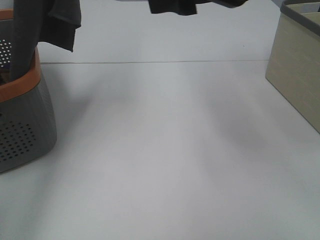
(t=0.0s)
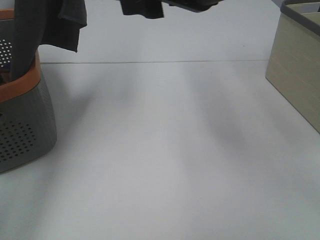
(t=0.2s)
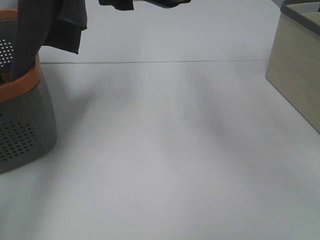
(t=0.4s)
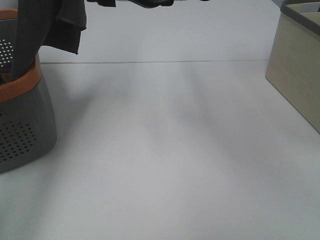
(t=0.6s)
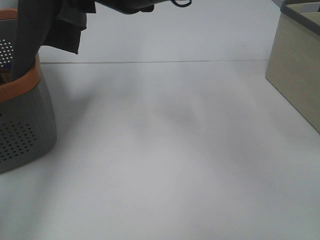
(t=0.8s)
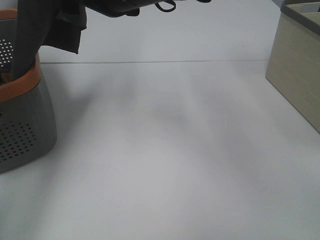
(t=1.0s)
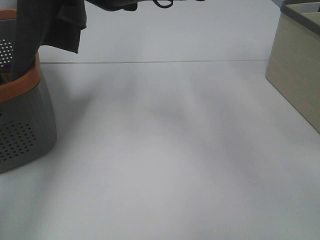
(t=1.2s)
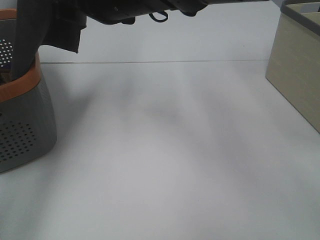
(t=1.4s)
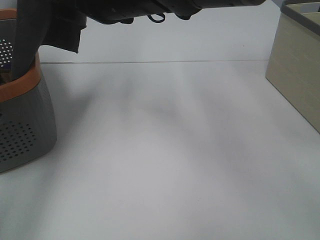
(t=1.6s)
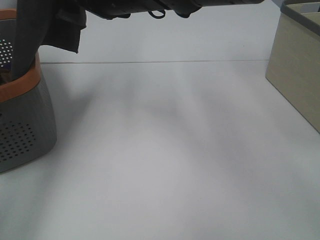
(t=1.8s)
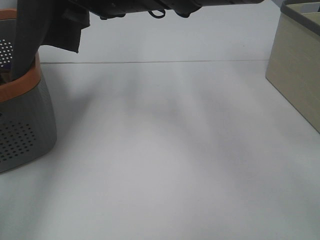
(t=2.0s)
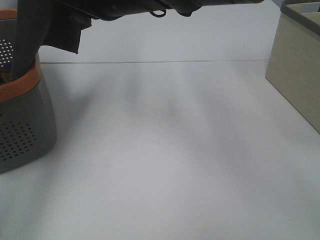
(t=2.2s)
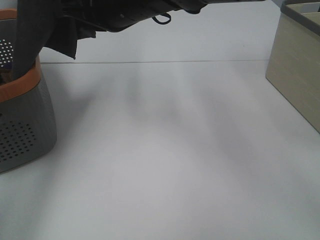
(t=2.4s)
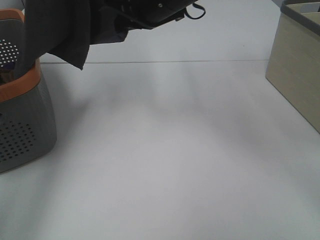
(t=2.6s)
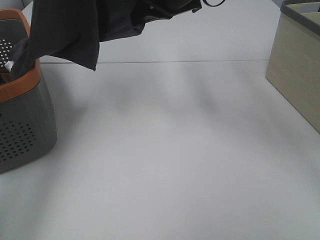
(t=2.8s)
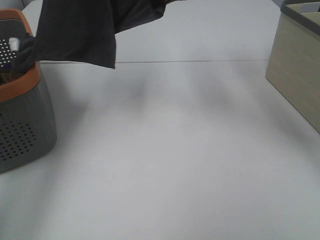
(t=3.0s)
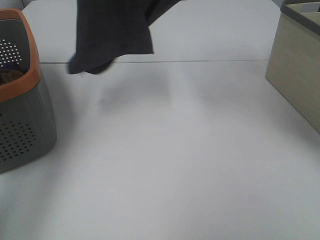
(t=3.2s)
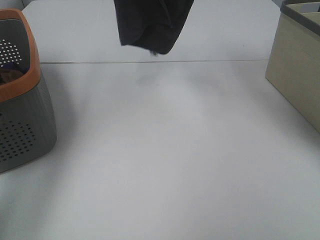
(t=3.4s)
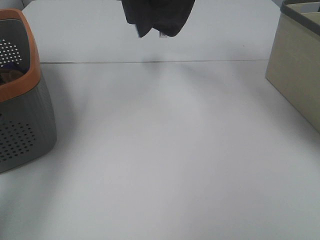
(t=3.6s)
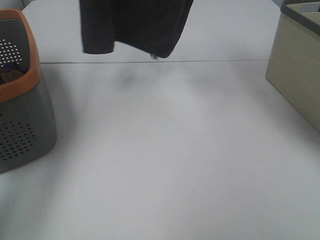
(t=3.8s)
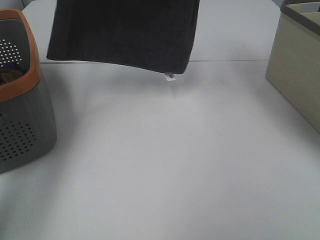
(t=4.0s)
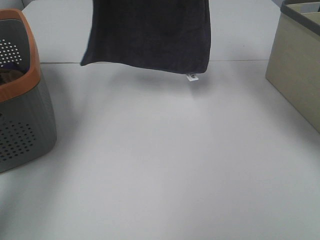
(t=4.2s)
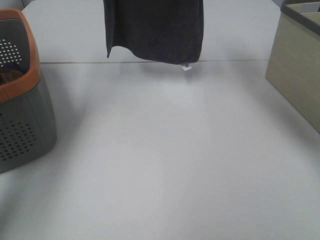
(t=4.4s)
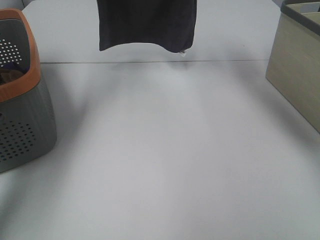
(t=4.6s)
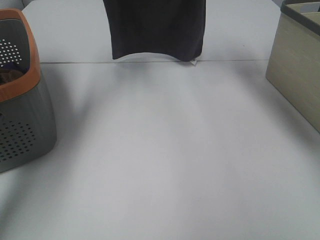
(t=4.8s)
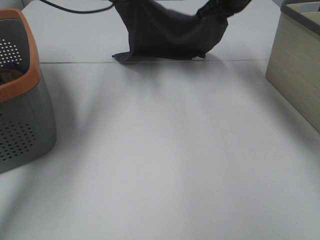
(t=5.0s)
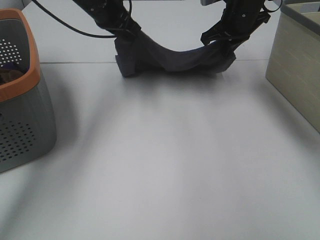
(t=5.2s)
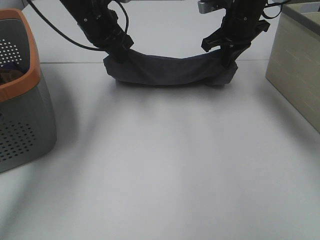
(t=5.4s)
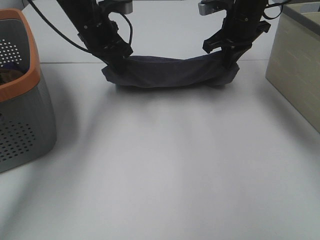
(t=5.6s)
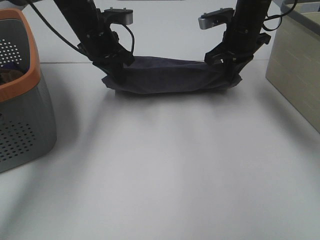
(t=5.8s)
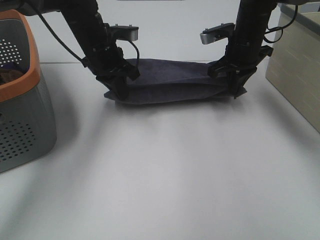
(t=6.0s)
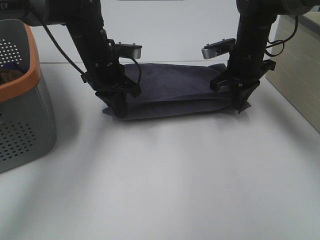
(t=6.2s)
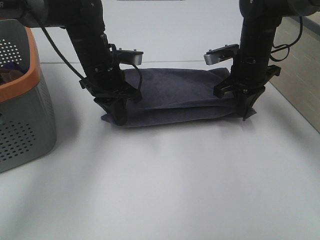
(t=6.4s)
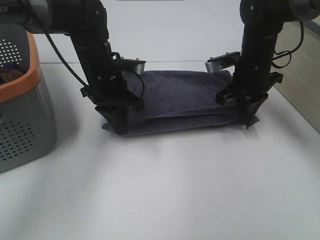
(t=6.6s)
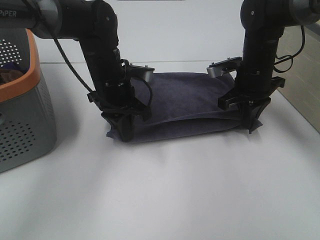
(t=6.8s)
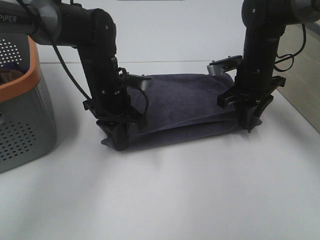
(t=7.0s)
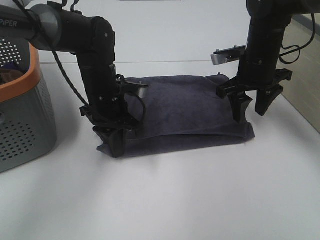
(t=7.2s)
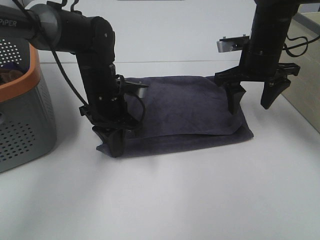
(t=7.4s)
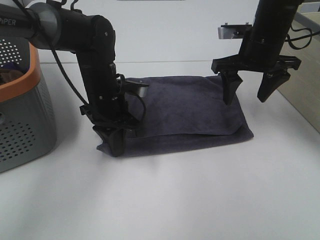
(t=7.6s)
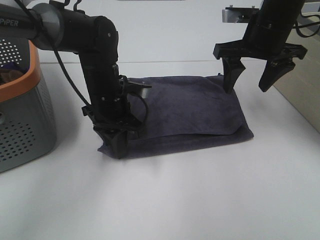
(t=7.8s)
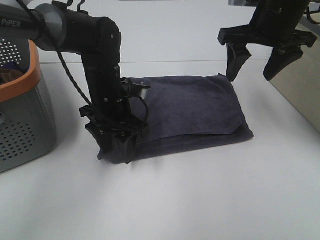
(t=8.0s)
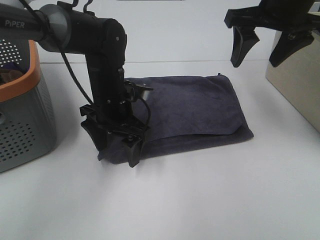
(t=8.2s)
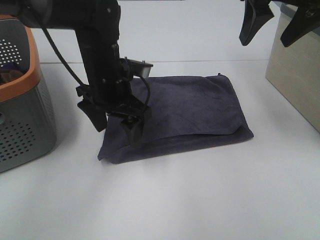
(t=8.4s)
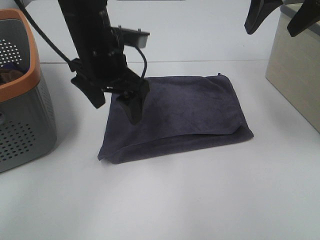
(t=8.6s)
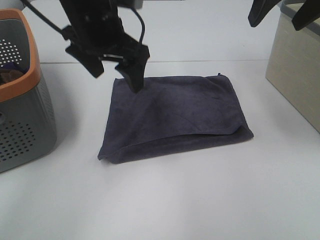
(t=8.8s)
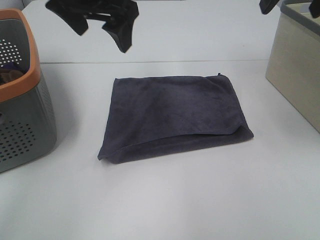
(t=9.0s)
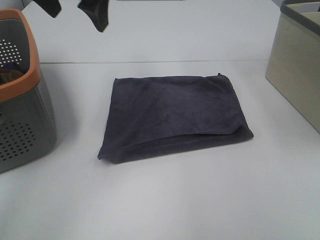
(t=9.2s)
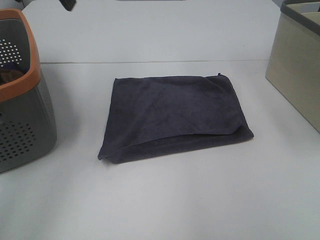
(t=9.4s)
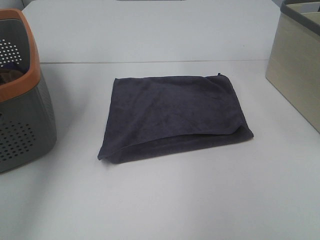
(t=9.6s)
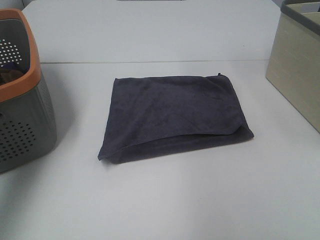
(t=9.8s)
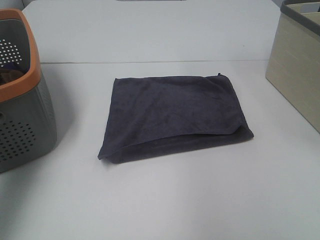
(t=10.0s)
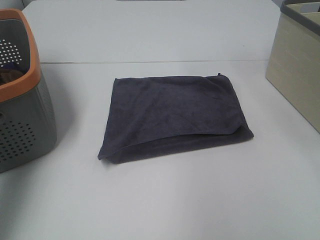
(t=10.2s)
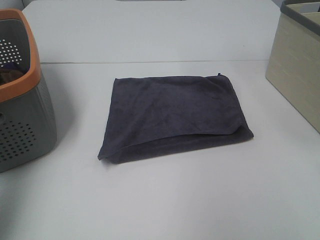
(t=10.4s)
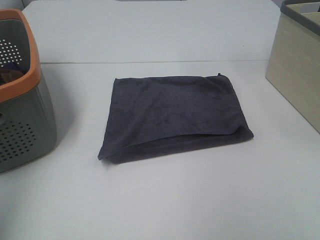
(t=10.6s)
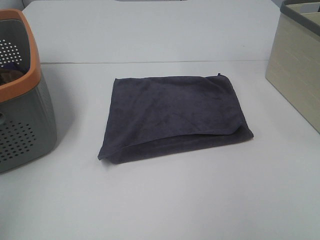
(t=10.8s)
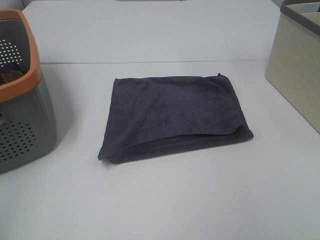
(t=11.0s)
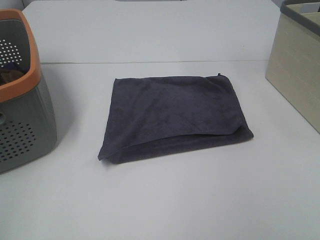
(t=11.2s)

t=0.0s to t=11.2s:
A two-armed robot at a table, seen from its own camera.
Task of the whole recording: Remove the towel and place it.
Step, t=1.4s to t=3.4s: Right hand: spread the grey towel flat on the table.
Step, t=1.4s to t=4.0s: Left hand: spread the grey towel flat on the table.
t=0.0s to t=1.6s: The right gripper travels to the left, forward and downward by roughly 20 cm.
t=1.6s to t=3.2s: The right gripper heads to the right, upward and forward, covering approximately 20 cm, and closes. Meanwhile the left gripper changes place by approximately 5 cm.
t=3.2s to t=4.8s: The left gripper is displaced downward and forward by roughly 20 cm, while the right gripper goes some 10 cm forward and downward.
t=4.8s to t=6.4s: Both grippers move downward and backward, roughly 20 cm.
t=6.4s to t=8.0s: The left gripper shifts by about 5 cm, and opens, while the right gripper goes about 10 cm upward, and opens.
t=8.0s to t=9.6s: The right gripper is displaced upward, to the right and backward by some 20 cm, while the left gripper moves upward and to the left, about 35 cm.
t=9.6s to t=11.2s: The left gripper heads backward, covering approximately 35 cm.

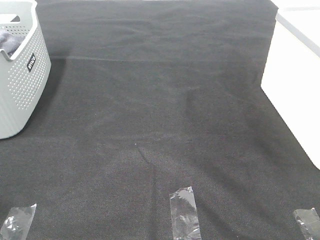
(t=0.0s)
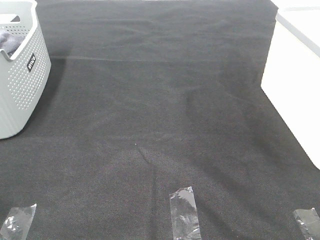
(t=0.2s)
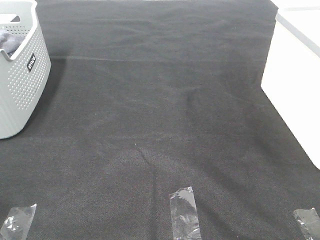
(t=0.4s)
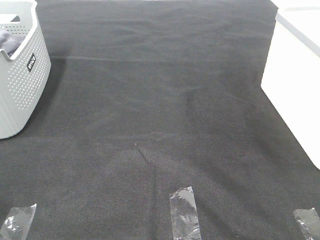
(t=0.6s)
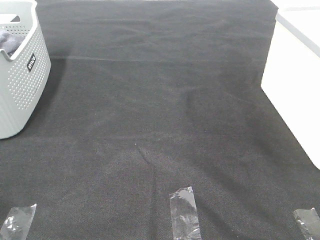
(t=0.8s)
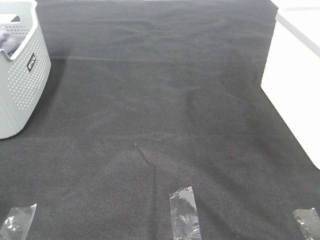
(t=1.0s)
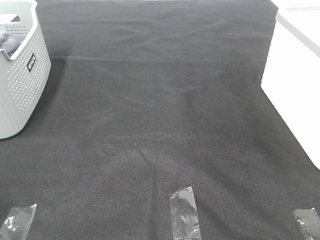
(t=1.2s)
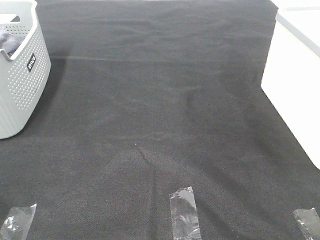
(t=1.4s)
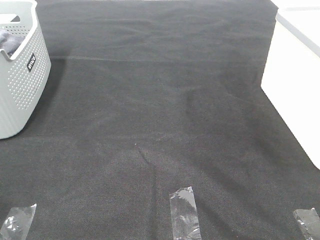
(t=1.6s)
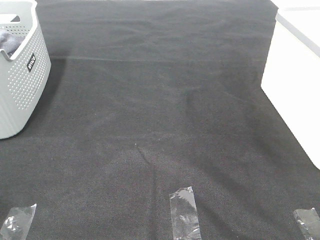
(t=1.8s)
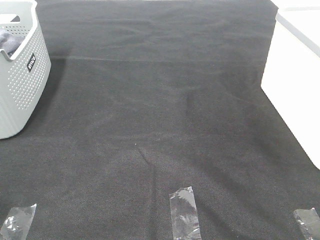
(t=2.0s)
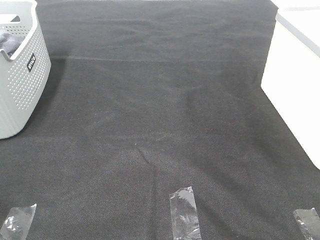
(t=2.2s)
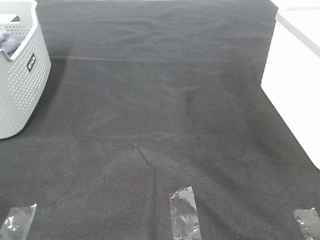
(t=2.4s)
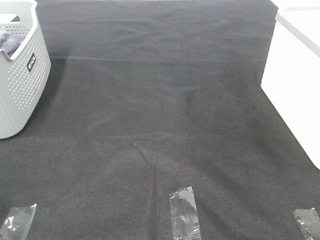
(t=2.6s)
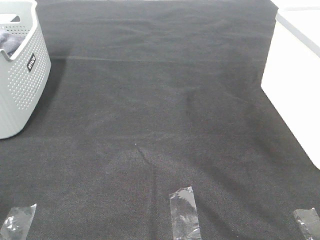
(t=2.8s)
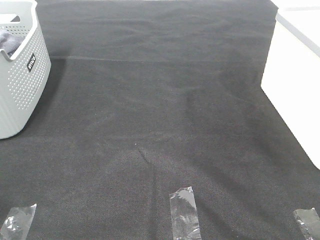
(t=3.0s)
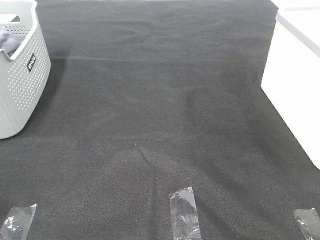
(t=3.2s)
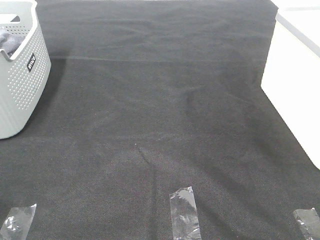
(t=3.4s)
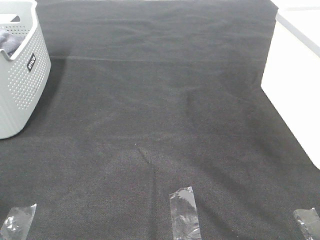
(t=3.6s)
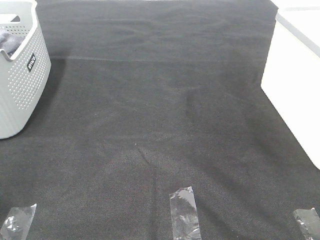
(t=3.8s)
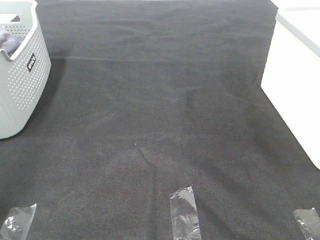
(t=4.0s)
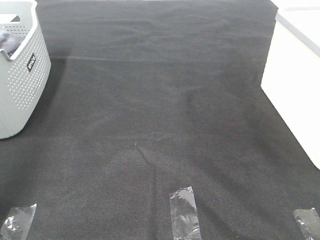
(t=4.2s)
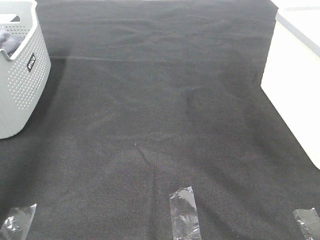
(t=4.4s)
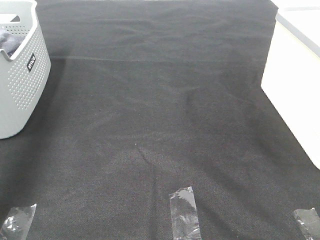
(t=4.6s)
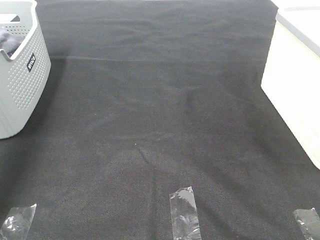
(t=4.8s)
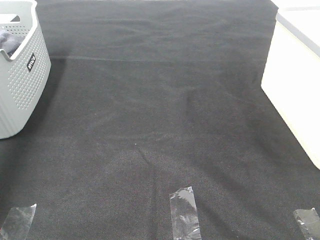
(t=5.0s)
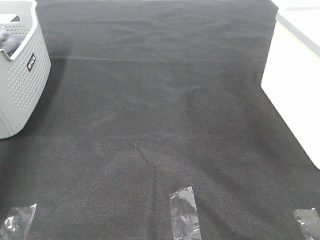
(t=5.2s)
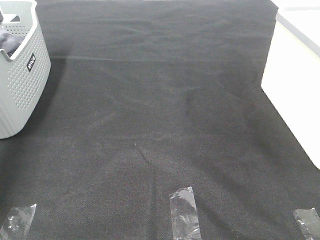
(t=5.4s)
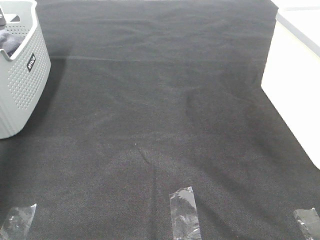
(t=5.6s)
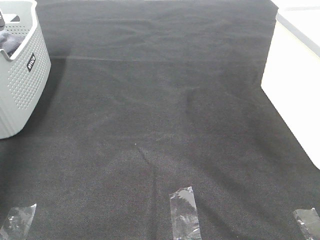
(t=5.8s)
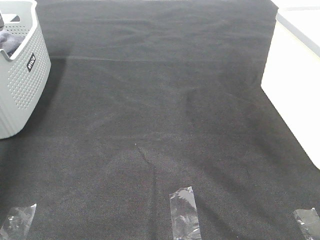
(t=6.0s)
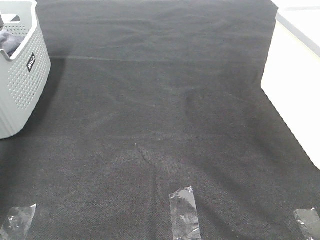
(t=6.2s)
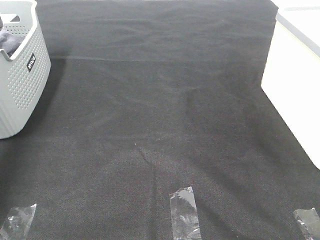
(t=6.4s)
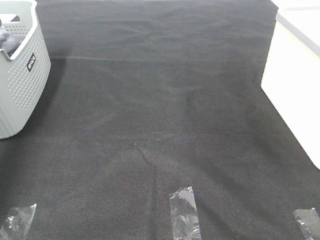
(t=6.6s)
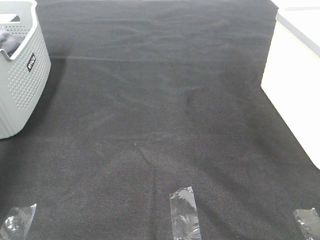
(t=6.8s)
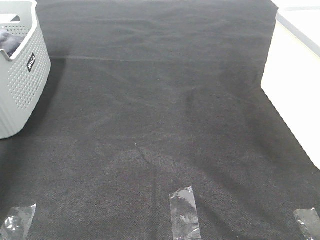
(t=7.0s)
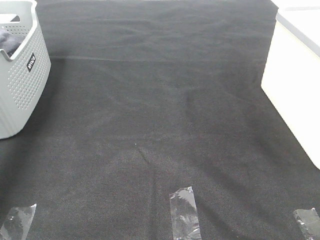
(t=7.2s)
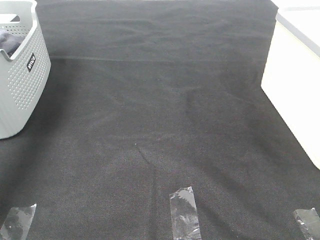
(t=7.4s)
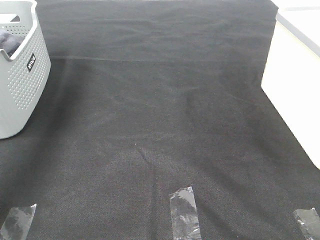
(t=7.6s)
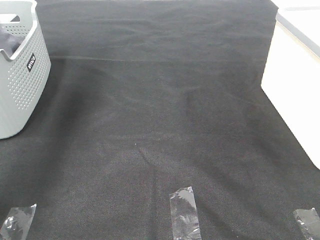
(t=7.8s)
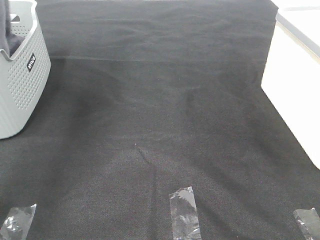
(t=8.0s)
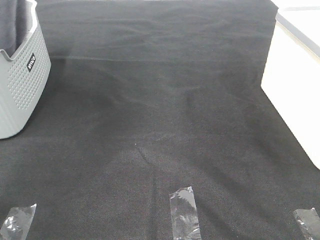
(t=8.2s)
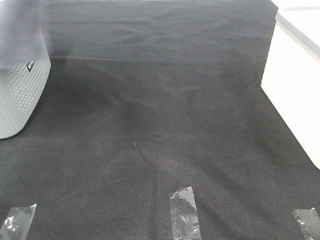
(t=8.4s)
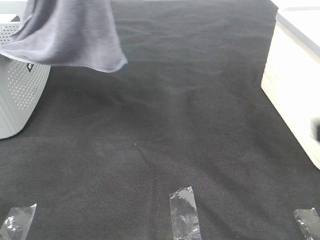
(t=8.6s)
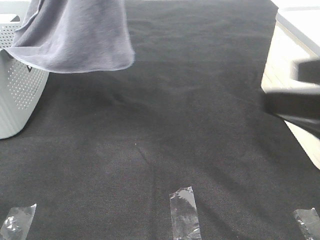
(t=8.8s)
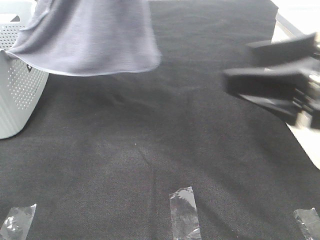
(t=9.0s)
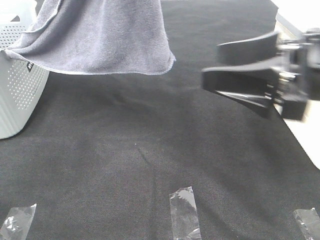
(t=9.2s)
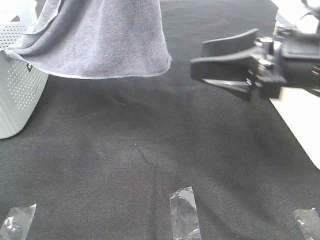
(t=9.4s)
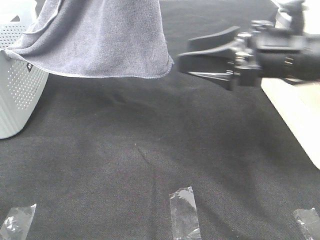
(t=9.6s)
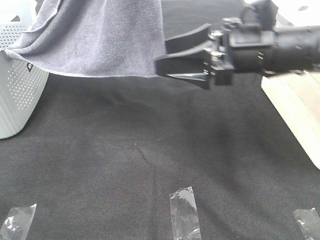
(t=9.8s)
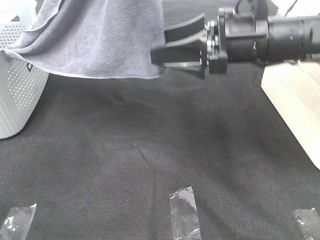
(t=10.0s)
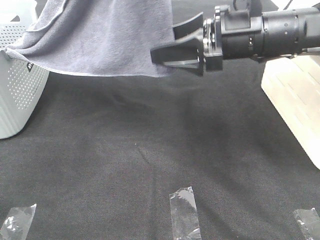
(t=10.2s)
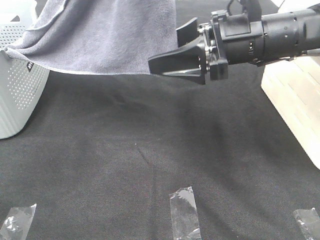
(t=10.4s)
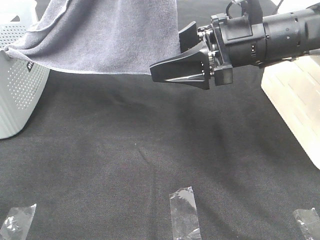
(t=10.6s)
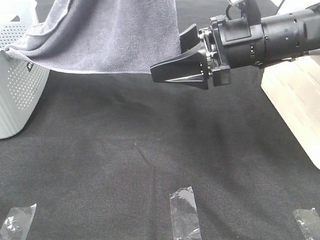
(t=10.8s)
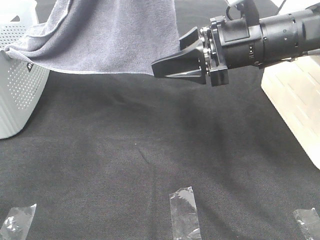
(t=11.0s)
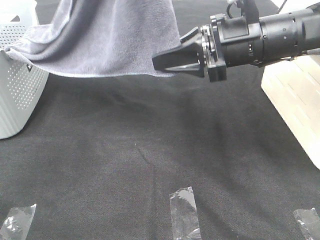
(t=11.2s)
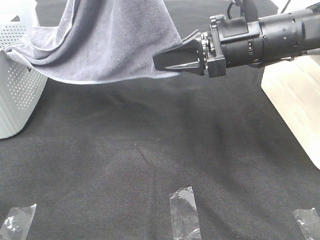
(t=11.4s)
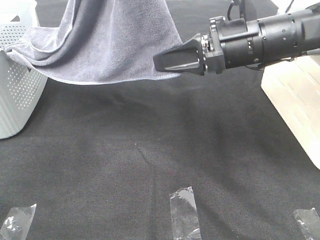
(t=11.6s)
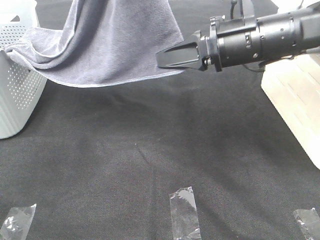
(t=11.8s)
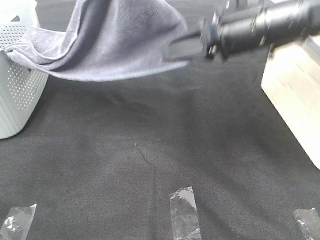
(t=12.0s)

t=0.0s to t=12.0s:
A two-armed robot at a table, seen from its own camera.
Task of the whole recording: Remove the towel and place it.
t=0.0s to t=3.0s: The two grippers keep their place.
t=3.0s to t=4.4s: The left gripper goes roughly 25 cm forward and upward.
t=4.4s to t=6.0s: The left gripper heads forward and downward, covering roughly 30 cm, and closes.
t=6.0s to t=7.6s: The left gripper heads upward and to the right, covering about 20 cm.
t=7.6s to t=9.0s: The right gripper heads forward, covering approximately 20 cm. The left gripper heads to the right, backward and upward, covering roughly 30 cm.
t=9.0s to t=10.4s: The right gripper travels forward and to the left by about 15 cm.
t=10.4s to t=12.0s: The right gripper closes up.
